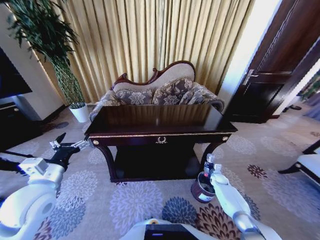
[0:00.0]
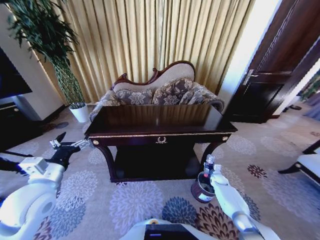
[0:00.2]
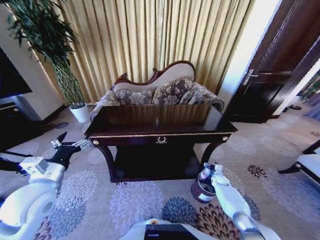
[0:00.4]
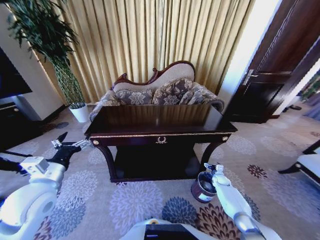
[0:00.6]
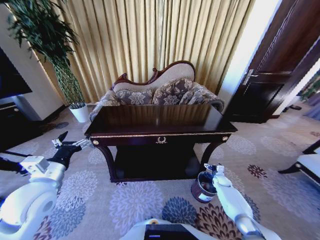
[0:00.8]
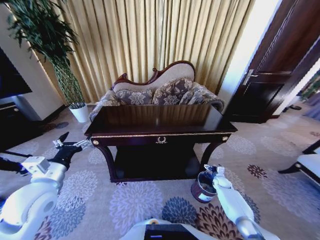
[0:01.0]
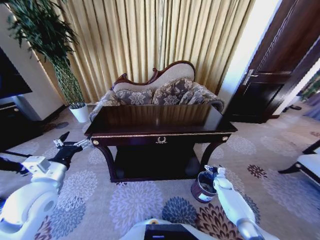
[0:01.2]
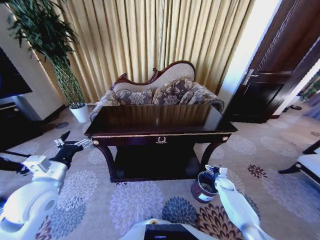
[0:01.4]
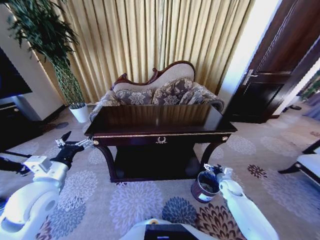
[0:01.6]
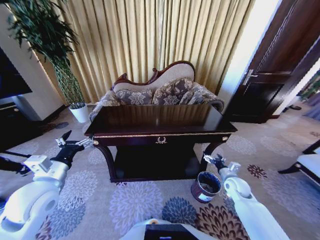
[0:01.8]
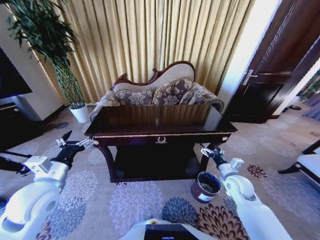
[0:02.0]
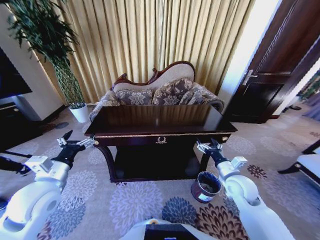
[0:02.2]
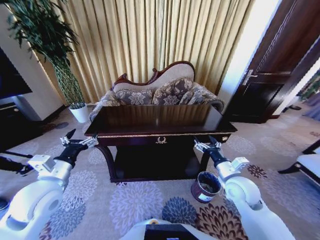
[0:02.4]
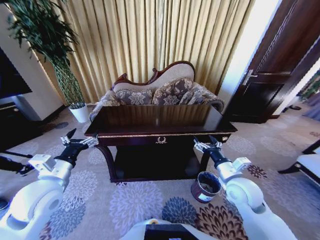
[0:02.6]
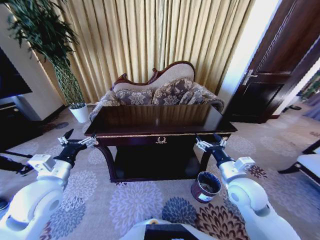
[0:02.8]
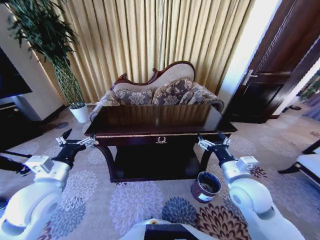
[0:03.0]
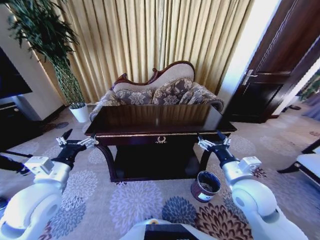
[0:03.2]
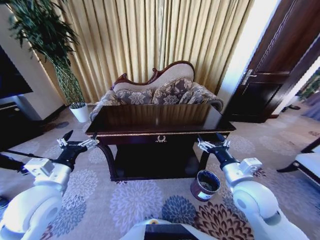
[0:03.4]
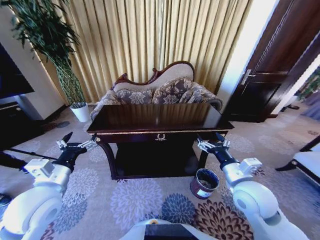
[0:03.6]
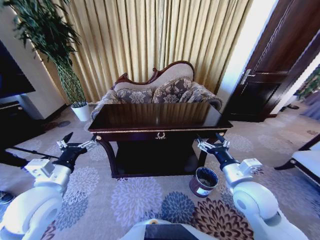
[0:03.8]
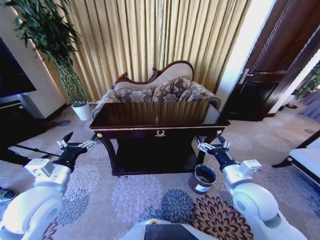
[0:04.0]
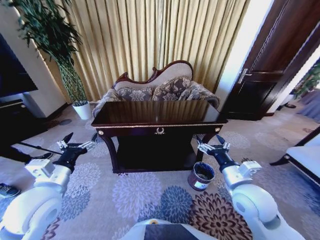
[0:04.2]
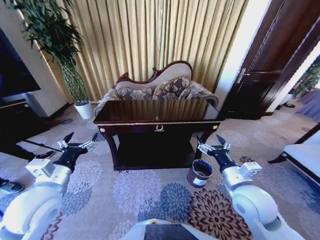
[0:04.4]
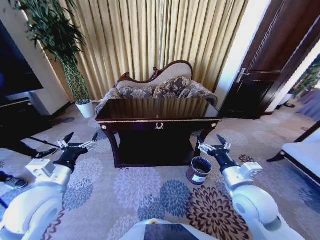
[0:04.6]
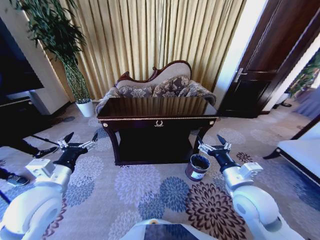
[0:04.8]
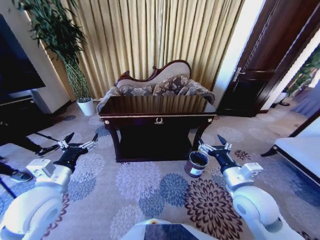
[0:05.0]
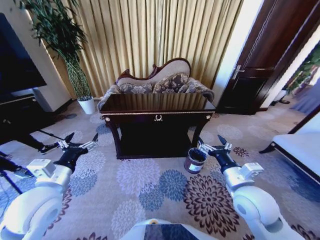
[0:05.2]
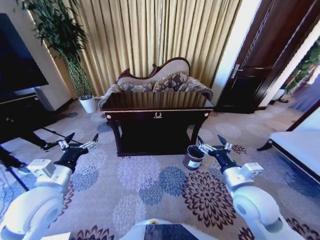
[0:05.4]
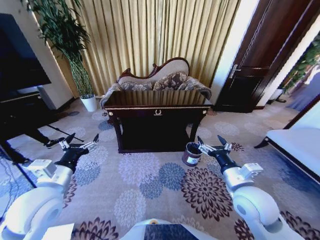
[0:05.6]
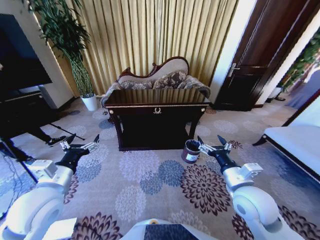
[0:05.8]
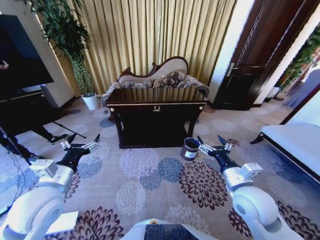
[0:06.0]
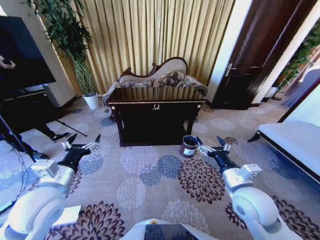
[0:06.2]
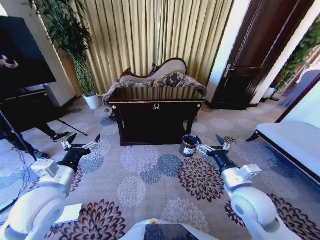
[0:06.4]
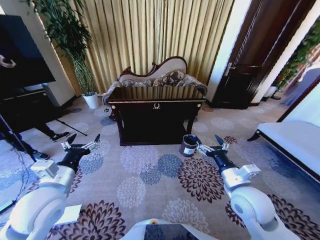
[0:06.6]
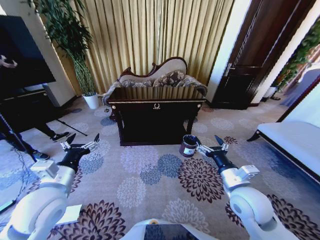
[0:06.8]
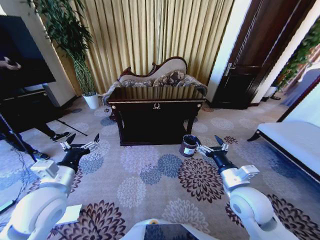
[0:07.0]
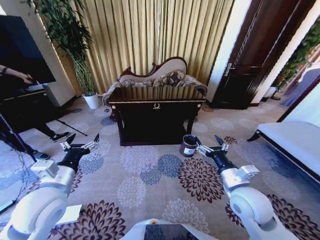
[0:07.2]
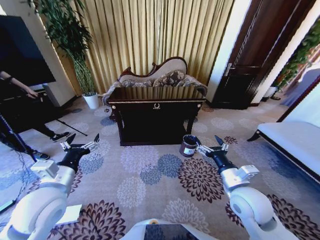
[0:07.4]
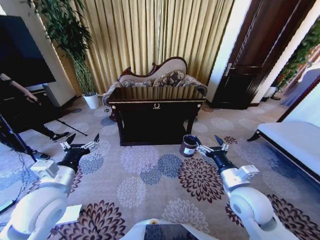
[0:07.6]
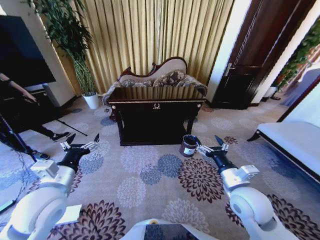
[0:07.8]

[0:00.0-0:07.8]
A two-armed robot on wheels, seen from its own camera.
Task of the whole recording: Move to the front of the table and place the trash on the table into the trash bin.
0.0 to 1.6 s: The right gripper is displaced upward and backward by some 10 cm, and opens its fingers.
1.6 to 3.2 s: The right gripper moves upward and to the left, about 30 cm.
6.2 to 7.8 s: The two grippers keep their place.

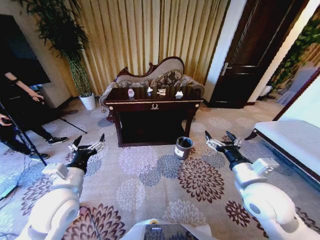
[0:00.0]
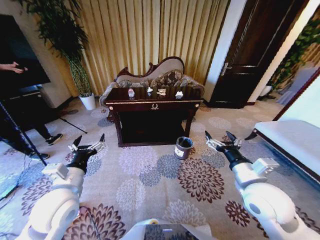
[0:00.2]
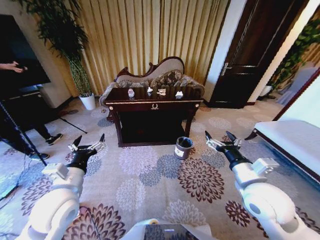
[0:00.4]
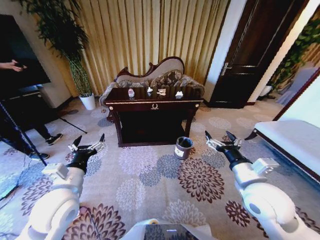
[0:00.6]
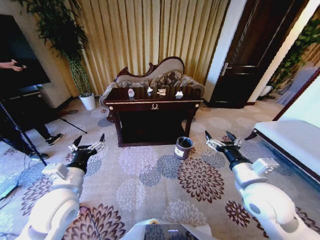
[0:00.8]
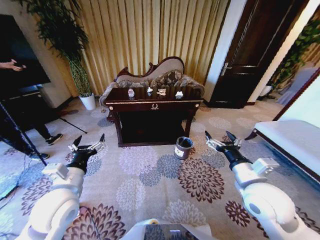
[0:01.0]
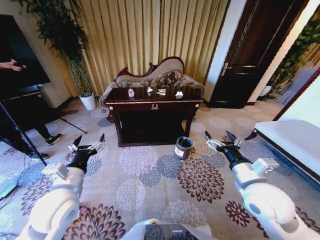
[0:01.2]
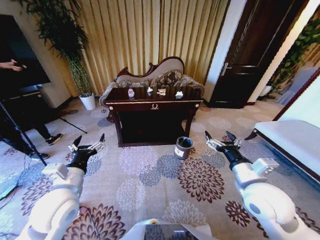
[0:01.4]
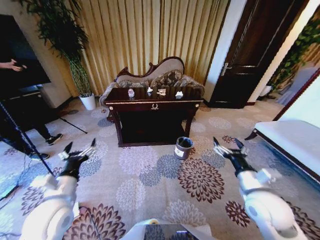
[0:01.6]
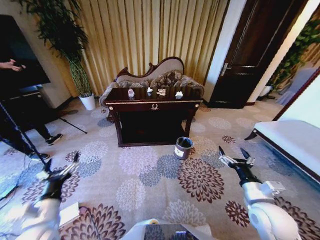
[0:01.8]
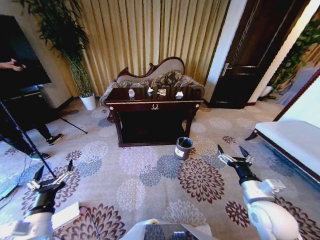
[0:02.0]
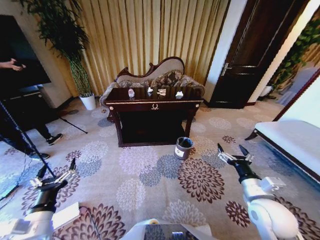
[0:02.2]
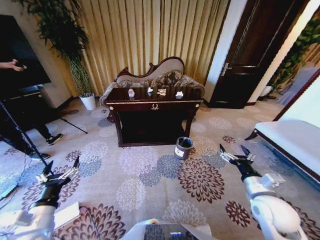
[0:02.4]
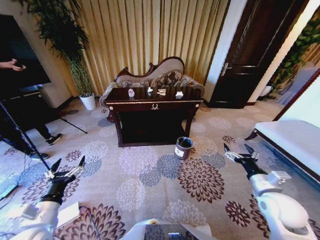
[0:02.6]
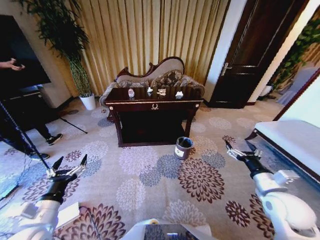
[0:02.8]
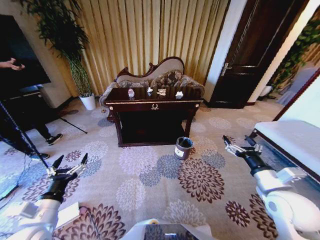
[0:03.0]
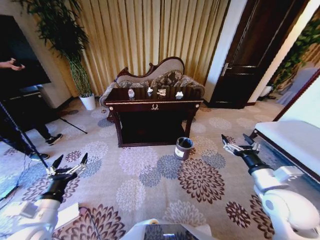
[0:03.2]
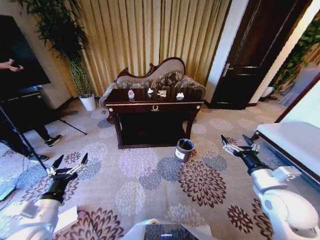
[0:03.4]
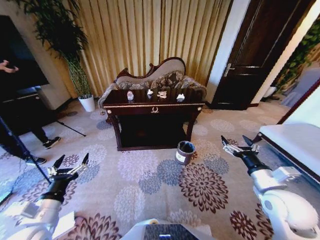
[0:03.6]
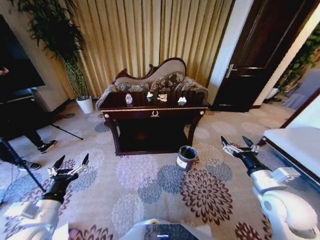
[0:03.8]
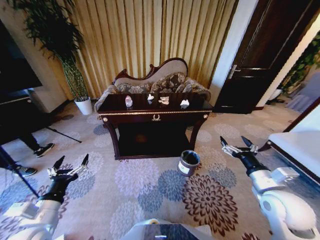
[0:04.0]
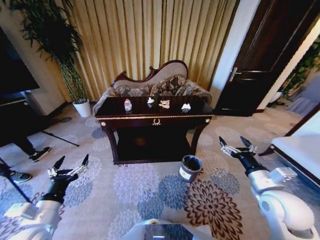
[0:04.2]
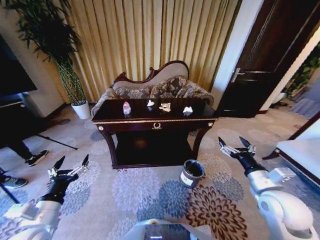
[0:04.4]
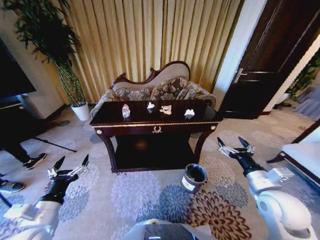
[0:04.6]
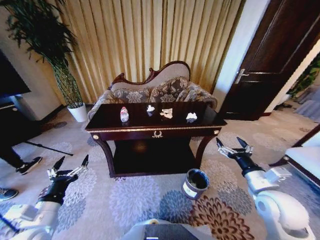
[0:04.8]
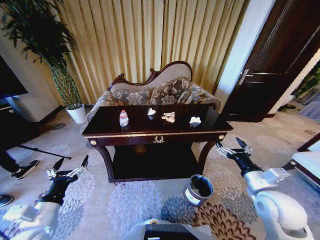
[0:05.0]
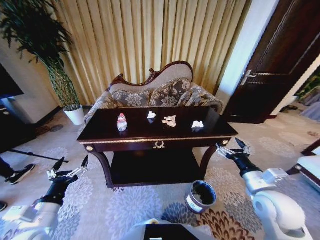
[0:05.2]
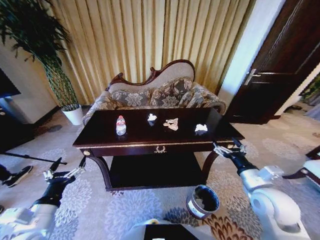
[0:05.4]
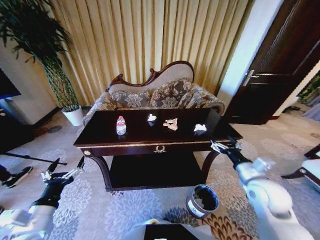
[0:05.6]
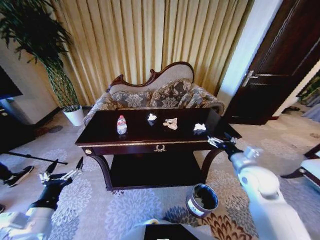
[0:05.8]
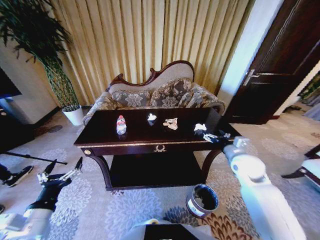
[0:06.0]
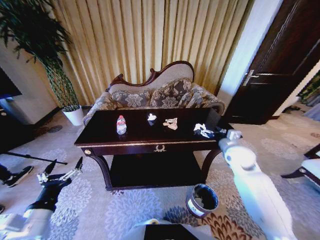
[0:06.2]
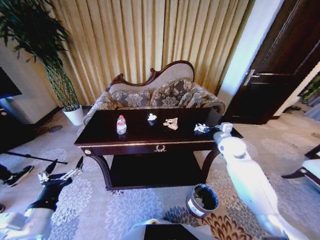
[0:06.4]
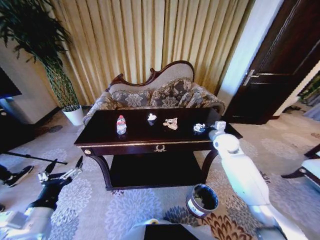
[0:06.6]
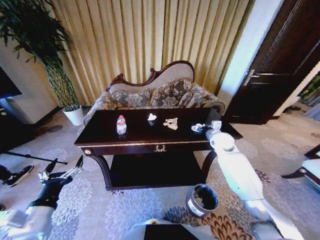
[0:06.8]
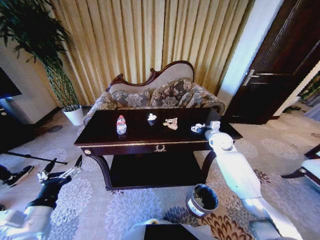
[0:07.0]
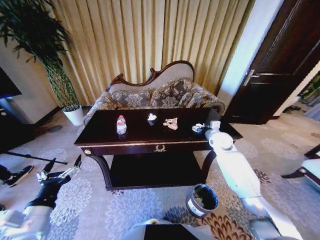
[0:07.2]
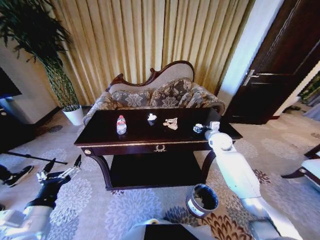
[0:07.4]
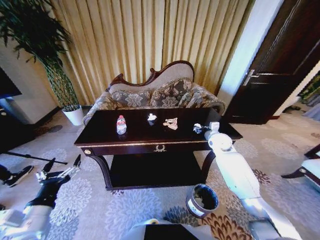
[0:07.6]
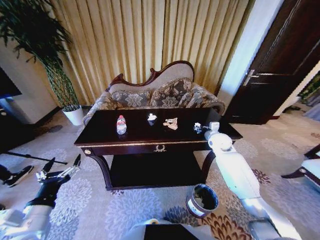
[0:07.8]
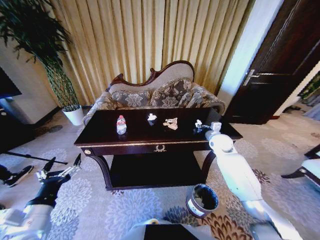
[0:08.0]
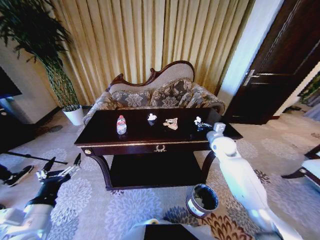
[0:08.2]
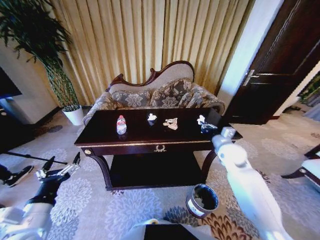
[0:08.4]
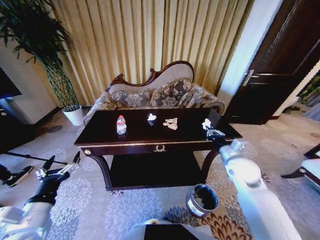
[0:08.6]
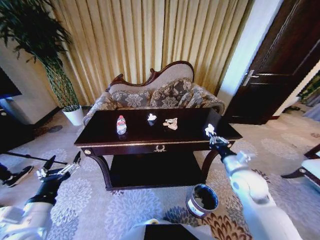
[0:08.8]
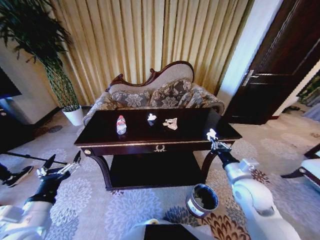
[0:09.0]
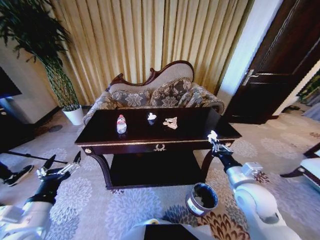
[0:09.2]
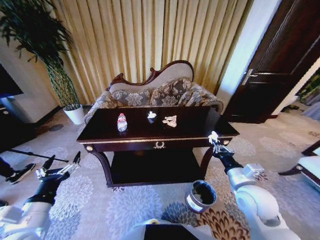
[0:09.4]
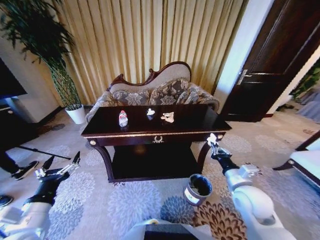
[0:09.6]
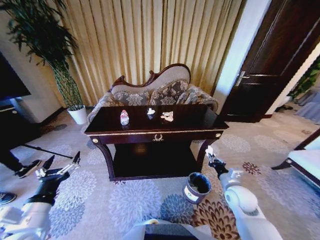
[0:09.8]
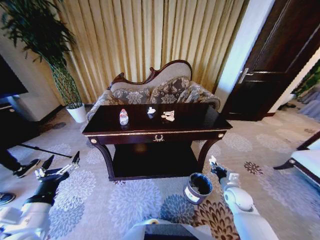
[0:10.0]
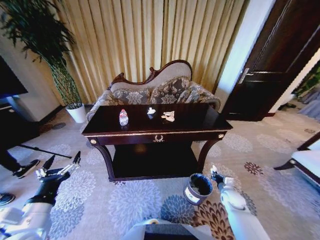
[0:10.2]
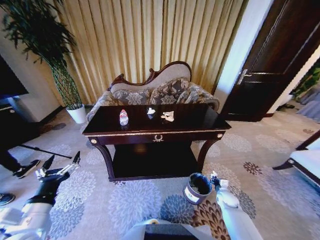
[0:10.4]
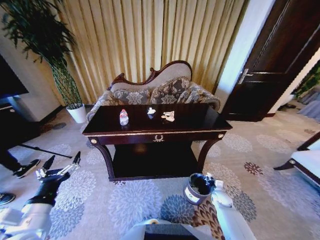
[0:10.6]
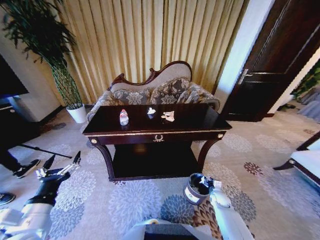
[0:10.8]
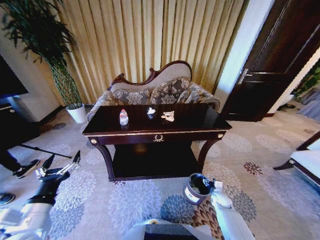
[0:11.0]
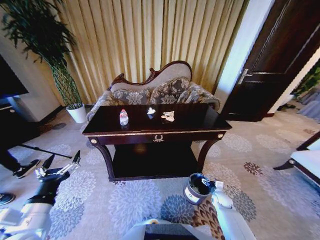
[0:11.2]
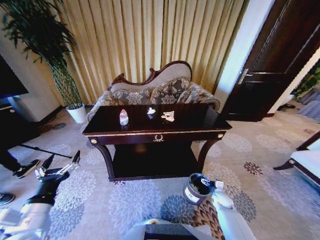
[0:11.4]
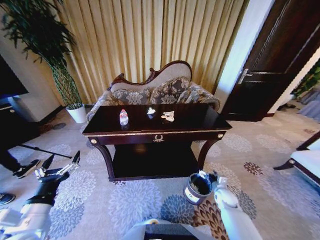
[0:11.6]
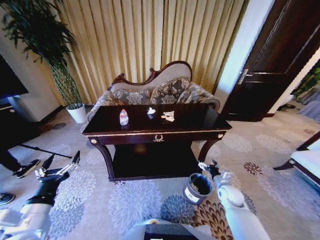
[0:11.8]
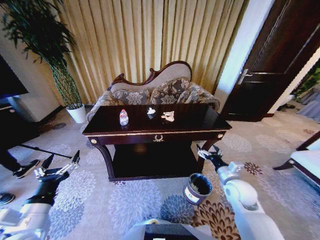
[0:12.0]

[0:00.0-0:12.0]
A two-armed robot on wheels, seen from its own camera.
Task of the whole recording: Move to the front of the table and place the trash on the table into the trash bin.
1.6 to 3.0 s: The right gripper is displaced to the right by roughly 5 cm. The left gripper moves backward, roughly 5 cm.
4.4 to 6.0 s: The right gripper travels forward by some 15 cm.
6.0 to 7.6 s: The right gripper moves forward, about 15 cm, and closes up.
7.6 to 9.0 s: The right gripper goes about 25 cm backward, and closes up.
9.0 to 10.4 s: The right gripper is displaced downward by approximately 30 cm.
10.4 to 12.0 s: The right gripper goes about 25 cm upward, and opens its fingers.

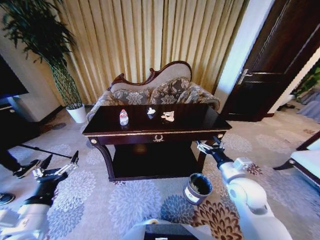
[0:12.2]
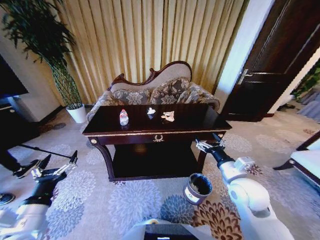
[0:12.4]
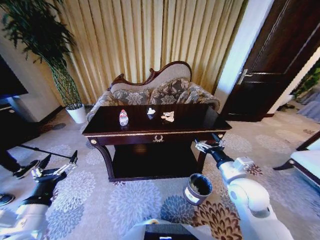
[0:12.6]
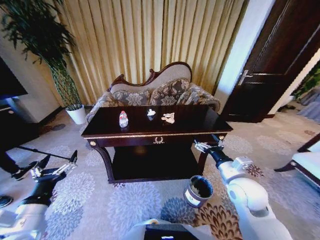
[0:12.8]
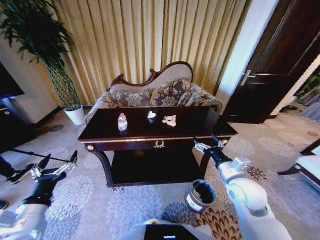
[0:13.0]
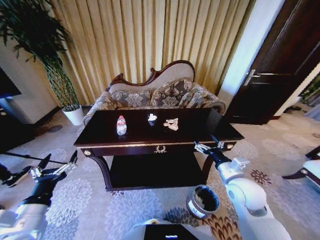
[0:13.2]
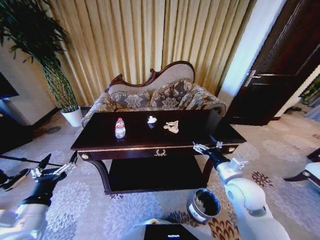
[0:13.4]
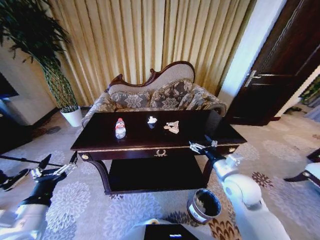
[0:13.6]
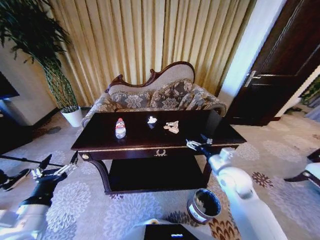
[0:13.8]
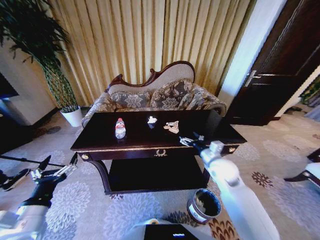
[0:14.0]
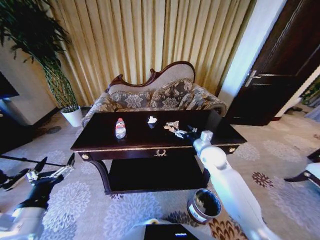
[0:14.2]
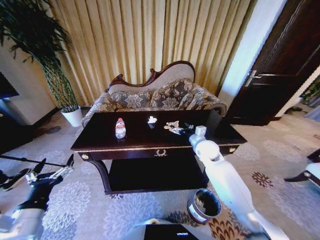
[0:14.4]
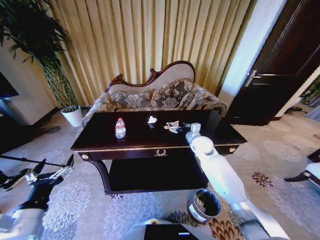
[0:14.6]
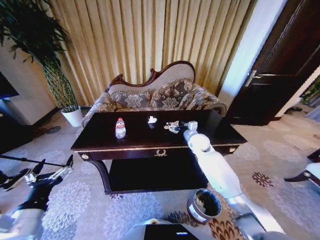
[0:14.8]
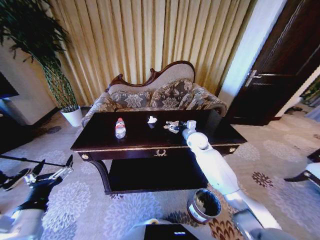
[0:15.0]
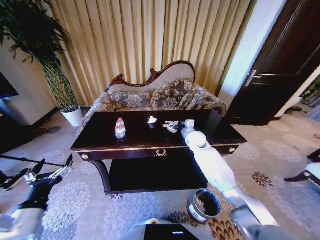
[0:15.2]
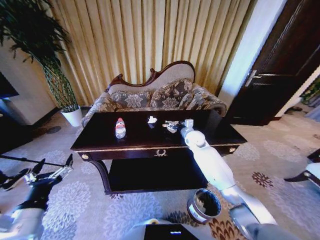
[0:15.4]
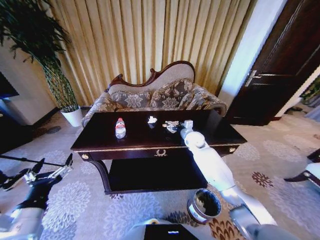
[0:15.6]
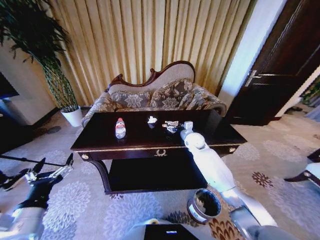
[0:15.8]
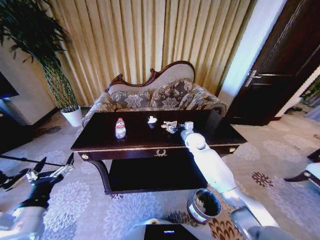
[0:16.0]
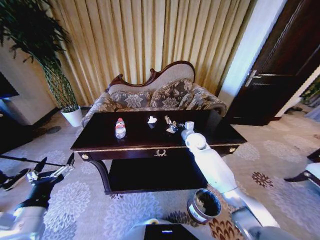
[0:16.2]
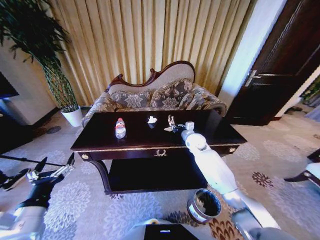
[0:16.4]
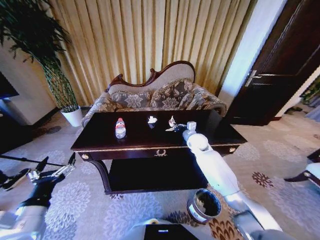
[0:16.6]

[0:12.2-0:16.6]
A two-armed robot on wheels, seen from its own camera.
Task of the whole recording: Move to the front of the table and place the trash on the table into the trash bin.
13.6 to 15.2 s: The right gripper is displaced forward by roughly 25 cm.
15.2 to 16.6 s: The right gripper closes up.
